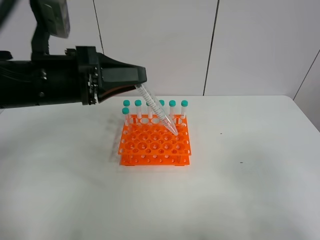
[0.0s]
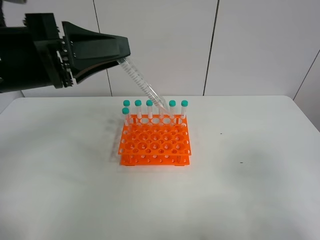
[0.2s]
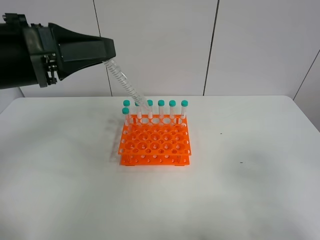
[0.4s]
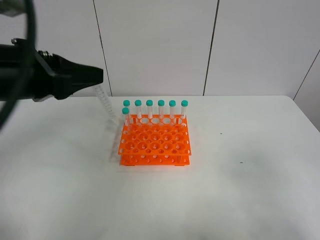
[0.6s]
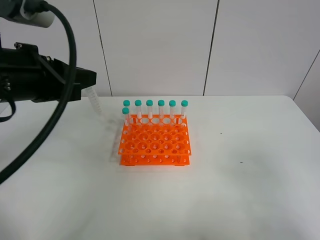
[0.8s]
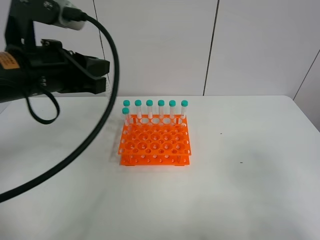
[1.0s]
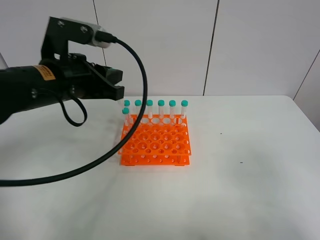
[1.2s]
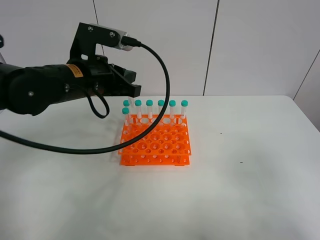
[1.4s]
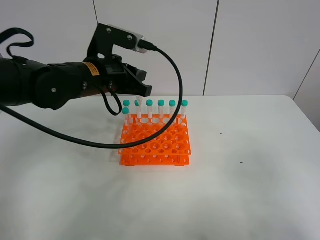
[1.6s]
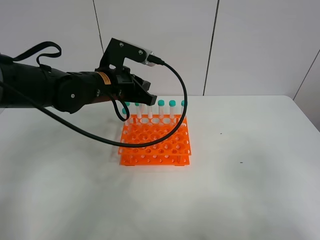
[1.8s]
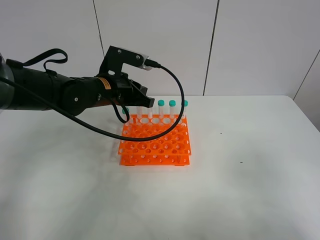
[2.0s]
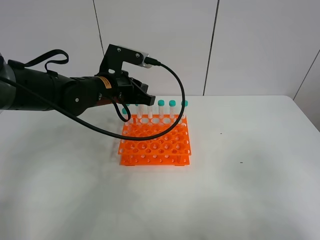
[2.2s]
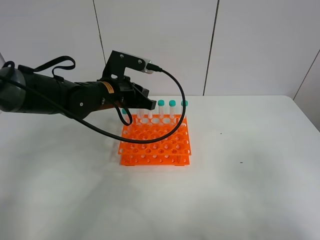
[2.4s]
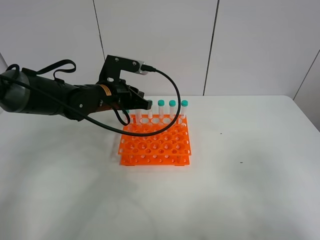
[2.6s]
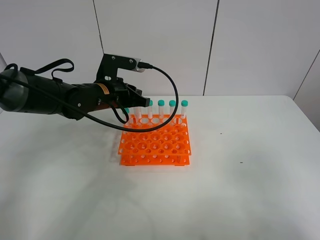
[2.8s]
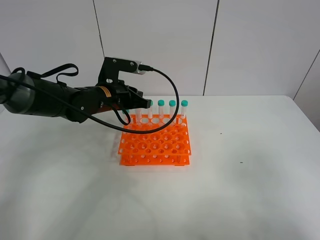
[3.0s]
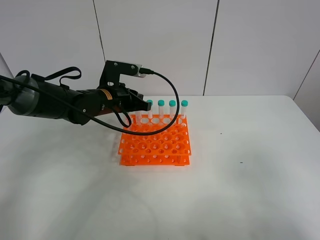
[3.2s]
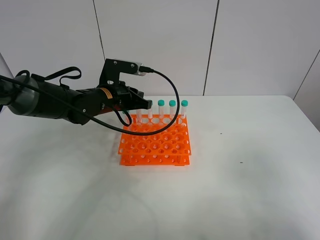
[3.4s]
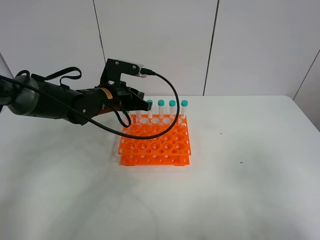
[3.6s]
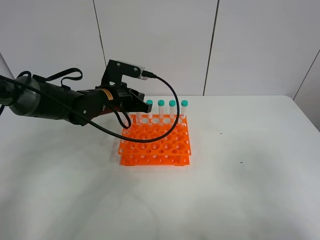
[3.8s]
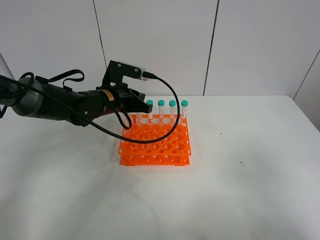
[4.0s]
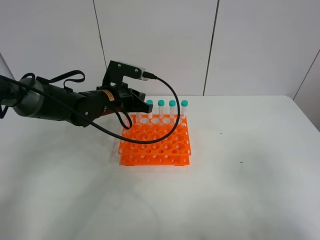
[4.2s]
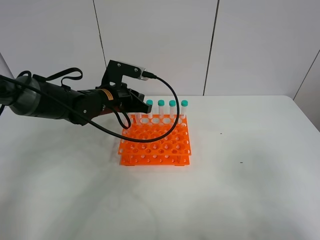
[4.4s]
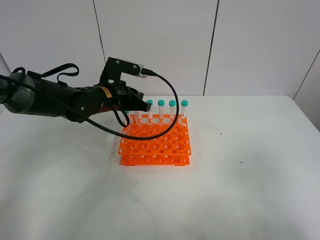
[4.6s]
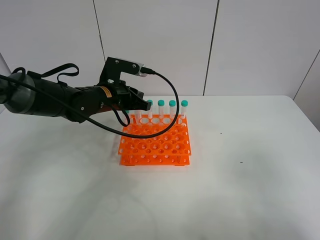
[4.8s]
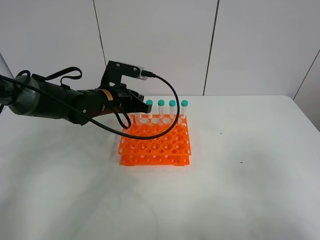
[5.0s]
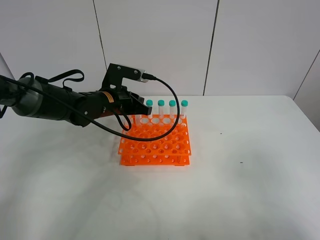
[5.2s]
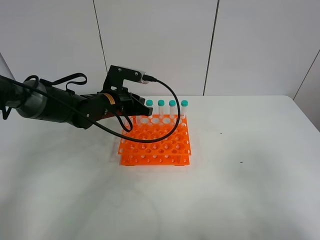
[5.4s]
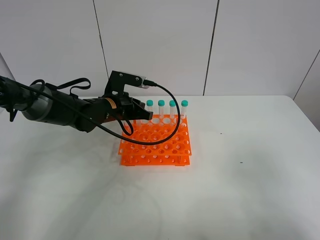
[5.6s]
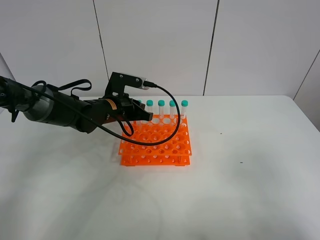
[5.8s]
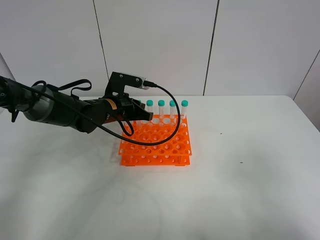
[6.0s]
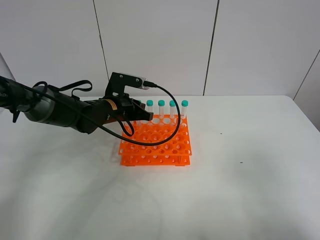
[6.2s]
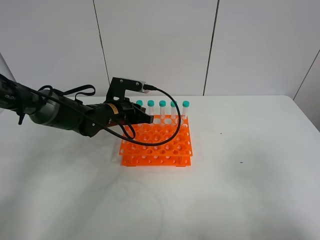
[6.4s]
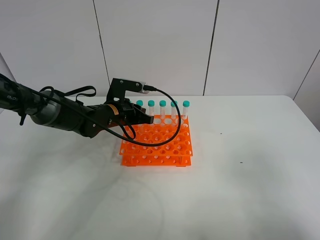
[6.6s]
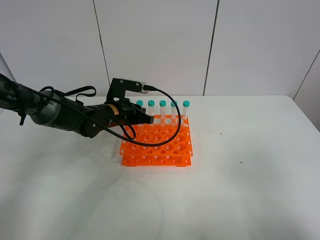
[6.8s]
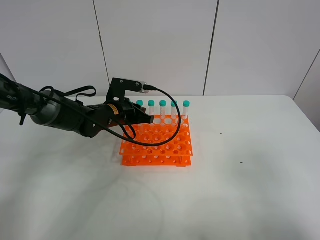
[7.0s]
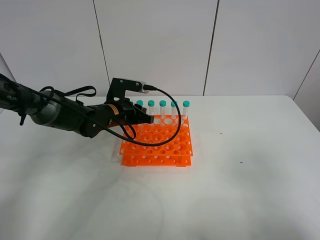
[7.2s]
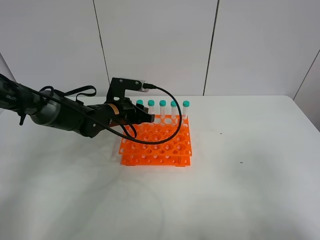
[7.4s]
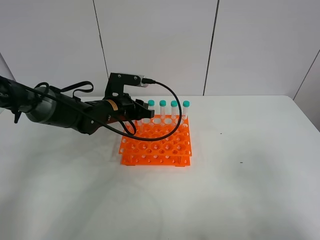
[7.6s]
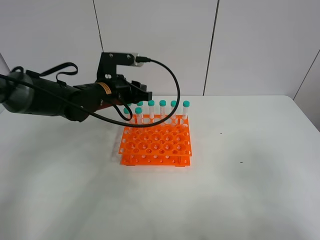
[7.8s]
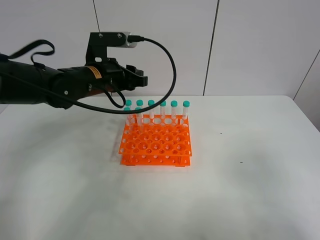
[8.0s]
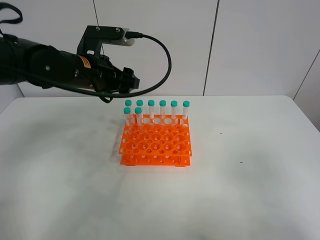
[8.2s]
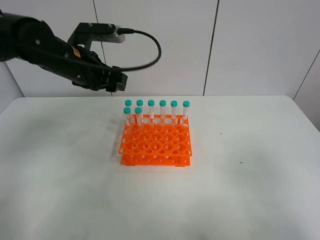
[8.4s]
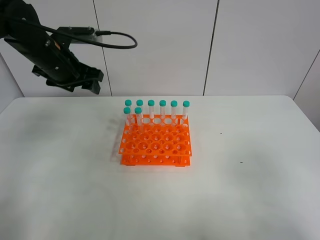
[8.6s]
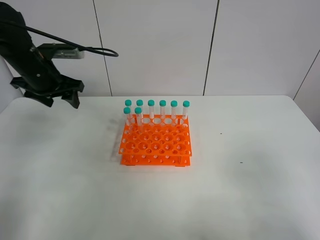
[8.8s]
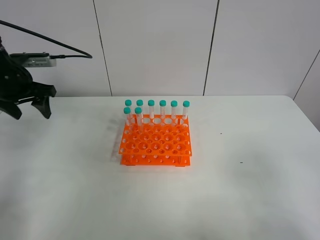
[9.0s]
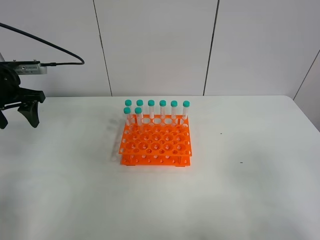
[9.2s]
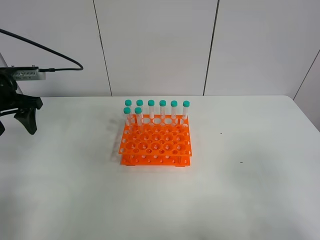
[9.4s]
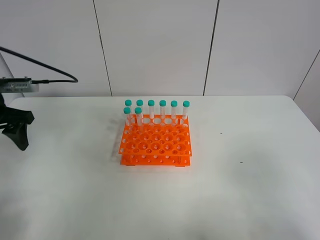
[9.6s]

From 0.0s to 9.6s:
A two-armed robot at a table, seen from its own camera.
Task of the whole recording: Put the test tube on the table back onto the test tube rack.
Step, from 0.0s to 7.4s: Place the test tube on the test tube rack with the left gripper.
From 0.0s to 1.6s: The left gripper goes some 10 cm forward and to the right.
From 1.6s to 3.2s: The left gripper goes some 10 cm downward and forward.
From 3.2s to 4.8s: The grippers move only a little.
From 4.8s to 6.4s: The left gripper shifts about 5 cm downward.
From 6.4s to 8.0s: The left gripper travels upward by roughly 10 cm, and opens its fingers.
From 8.0s to 9.6s: The left gripper heads to the left, covering some 20 cm, and opens.

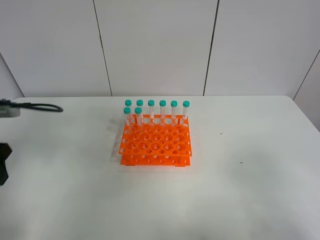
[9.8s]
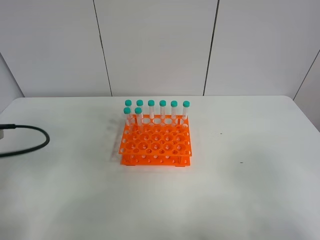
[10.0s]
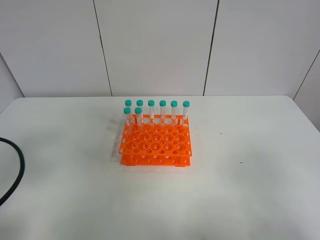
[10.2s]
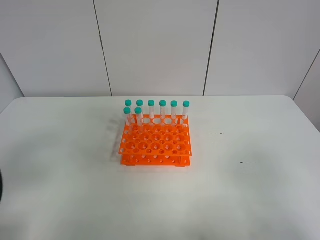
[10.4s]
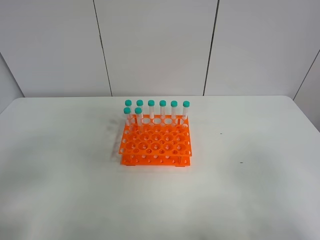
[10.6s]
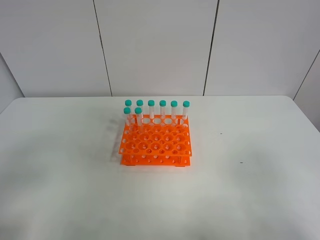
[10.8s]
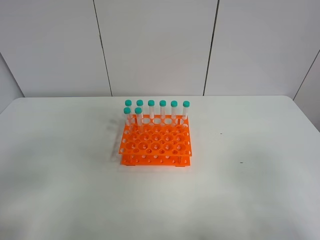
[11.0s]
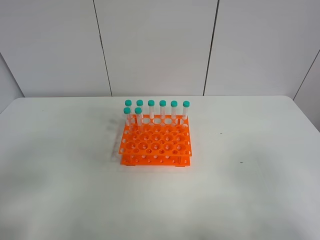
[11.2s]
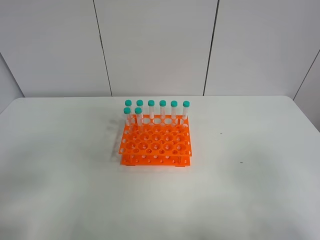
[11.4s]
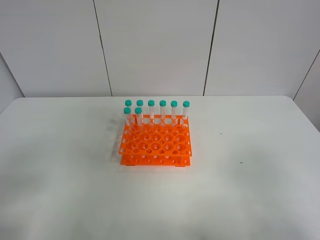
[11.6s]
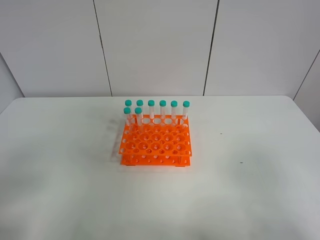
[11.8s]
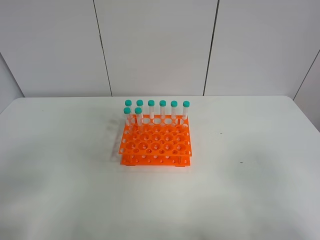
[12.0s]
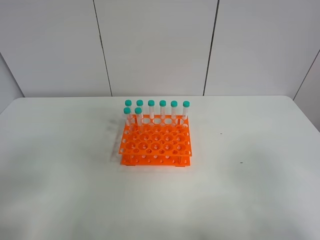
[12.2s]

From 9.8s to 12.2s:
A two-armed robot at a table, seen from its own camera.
Task of the whole recording: Put the test tube on the table back onto the test tube rack.
From 9.8s to 11.0s: The left gripper goes some 15 cm backward.

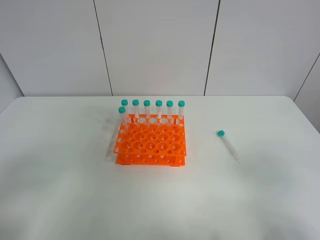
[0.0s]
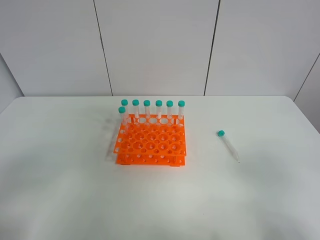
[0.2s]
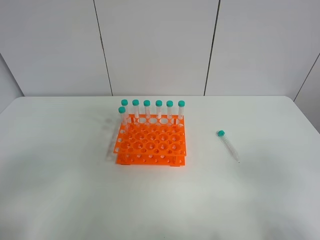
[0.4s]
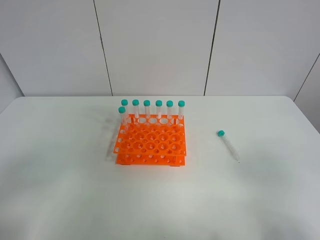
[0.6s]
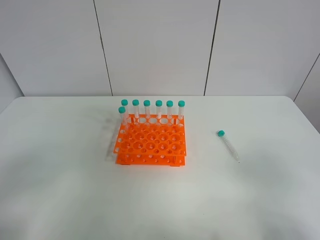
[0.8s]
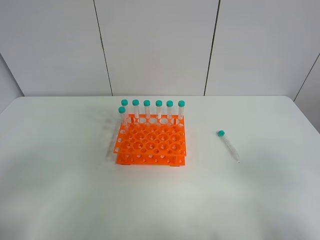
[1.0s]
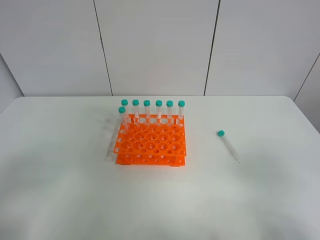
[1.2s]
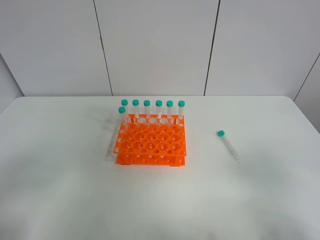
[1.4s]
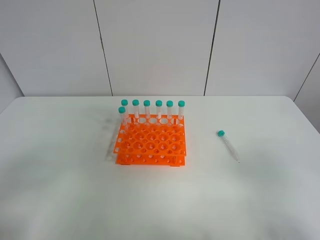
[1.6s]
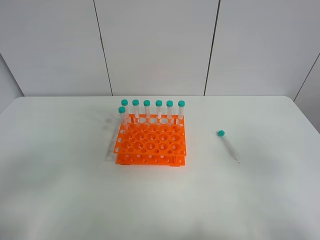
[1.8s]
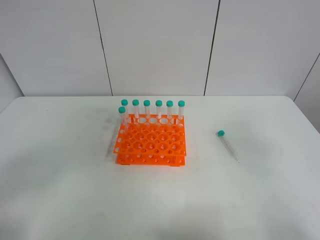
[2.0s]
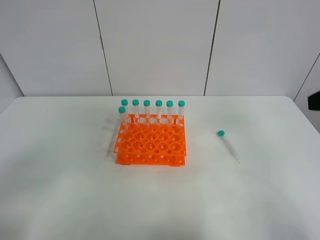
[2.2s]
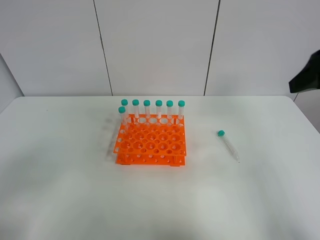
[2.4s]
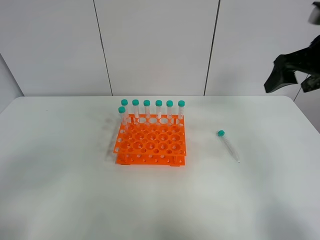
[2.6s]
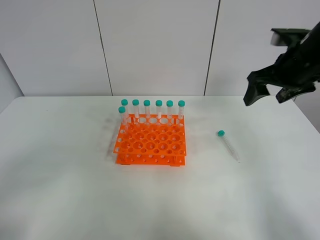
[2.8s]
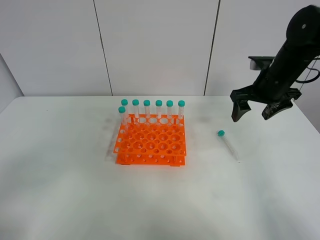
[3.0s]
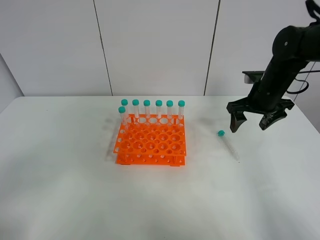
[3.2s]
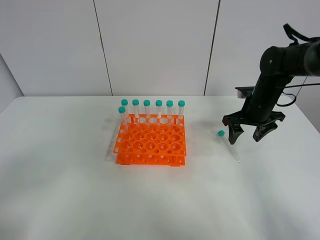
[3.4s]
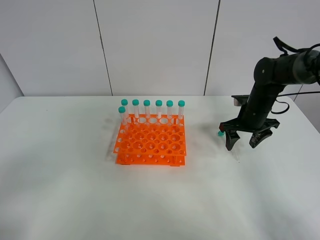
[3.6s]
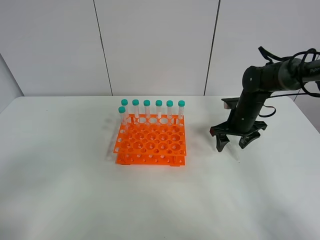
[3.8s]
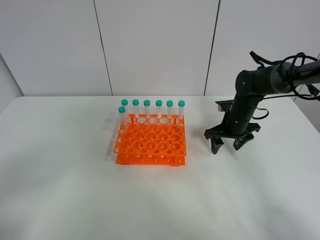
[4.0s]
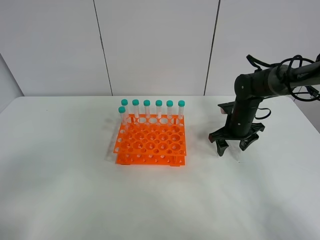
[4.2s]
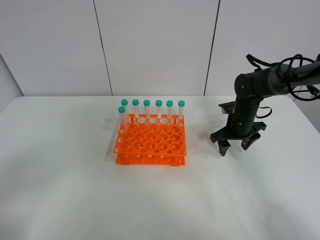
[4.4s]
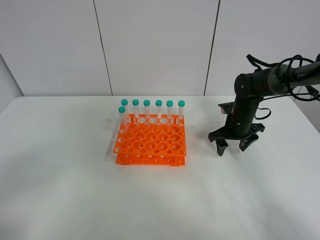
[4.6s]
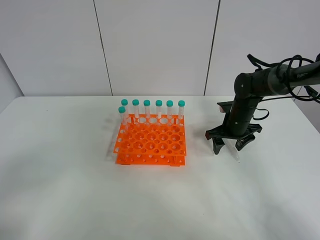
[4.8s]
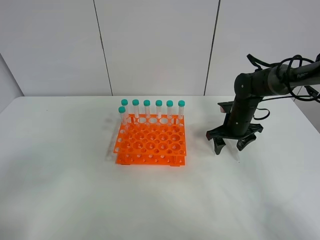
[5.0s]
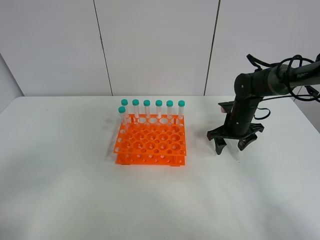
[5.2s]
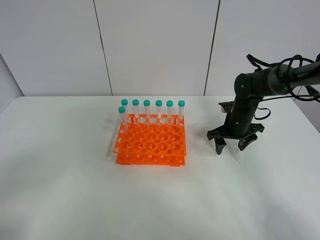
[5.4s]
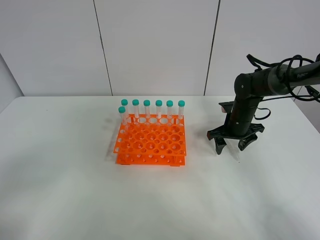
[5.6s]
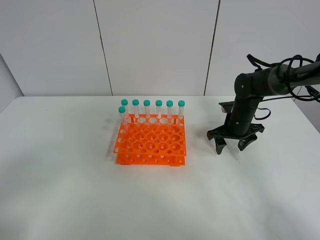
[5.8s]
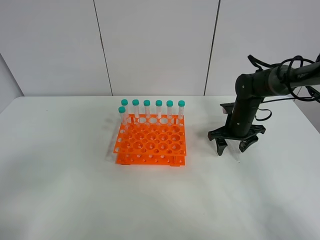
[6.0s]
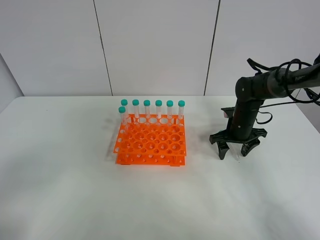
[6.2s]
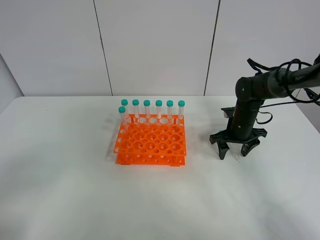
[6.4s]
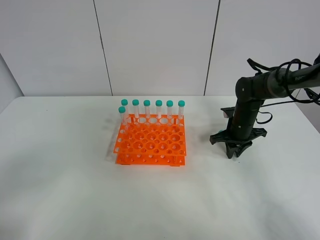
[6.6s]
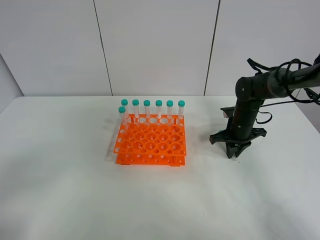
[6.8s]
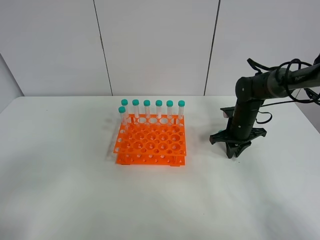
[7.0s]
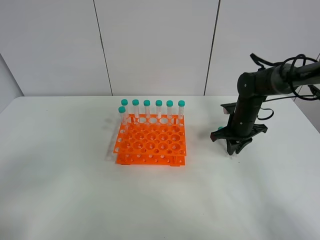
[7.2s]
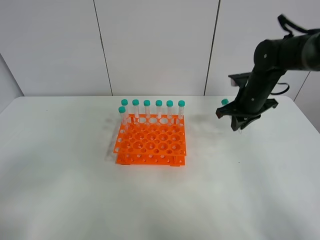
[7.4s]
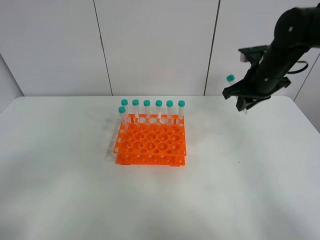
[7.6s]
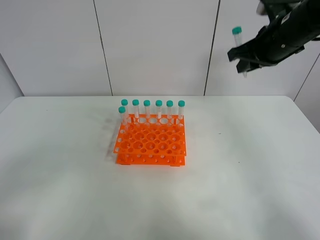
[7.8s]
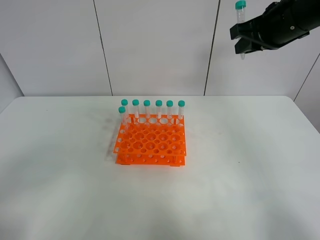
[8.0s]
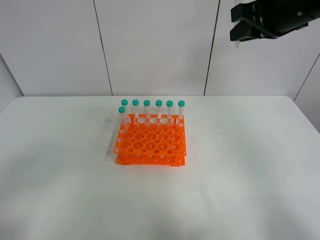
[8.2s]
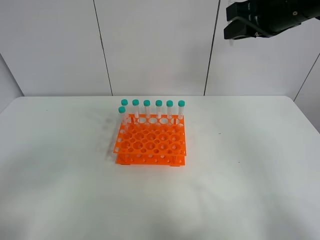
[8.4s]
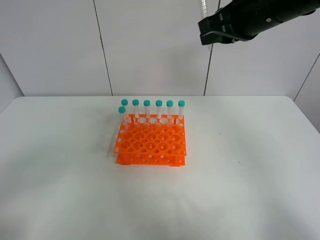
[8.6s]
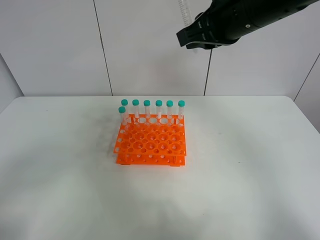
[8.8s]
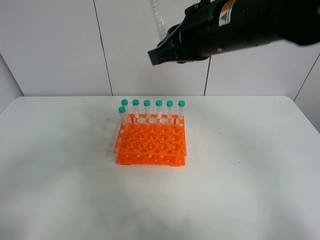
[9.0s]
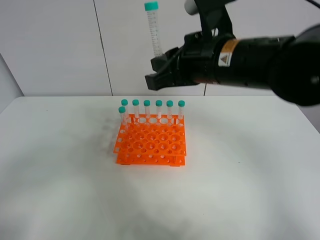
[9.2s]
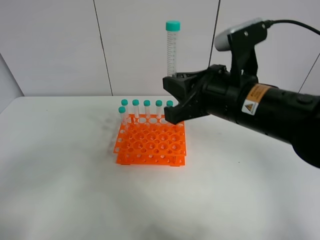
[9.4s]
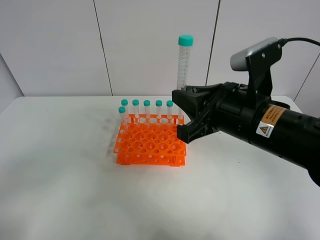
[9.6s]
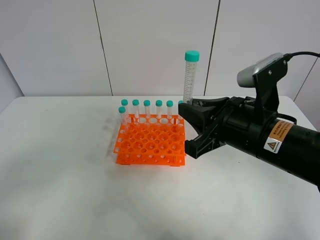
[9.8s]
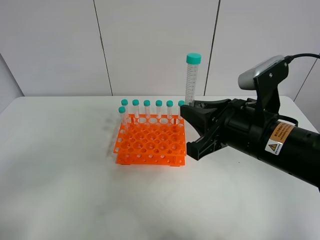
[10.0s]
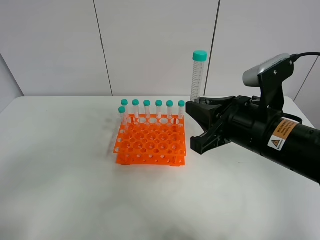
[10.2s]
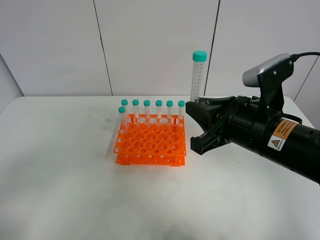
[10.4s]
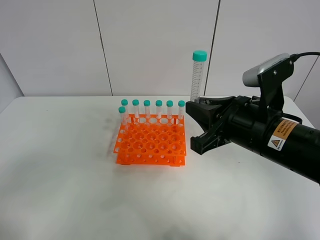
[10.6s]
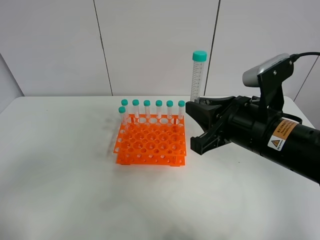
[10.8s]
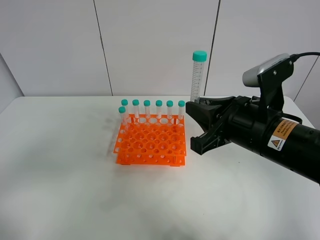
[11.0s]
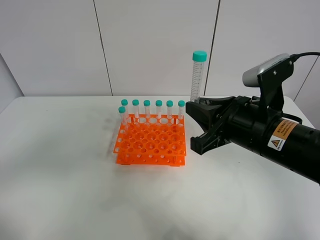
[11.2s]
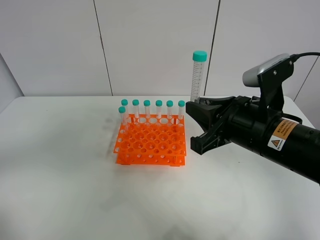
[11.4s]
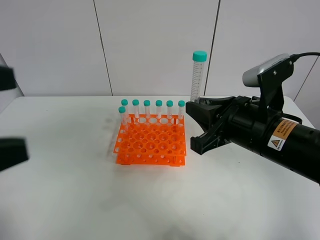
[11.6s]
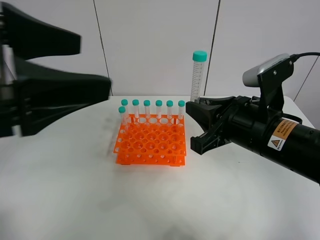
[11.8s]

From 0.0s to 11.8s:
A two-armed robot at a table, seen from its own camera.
Task of the whole recording: Put the test tube on the table back onto the test tube rack.
Step, from 0.0s to 7.6s: Pick up the test tube with the right gripper.
From 0.0s to 1.4s: Both grippers stay about where they are.
From 1.4s to 3.0s: The right gripper shifts some 35 cm forward.
From 3.0s to 4.4s: The right gripper shifts approximately 15 cm downward.
From 4.4s to 6.0s: The grippers make only small movements.
From 6.0s to 7.4s: The right gripper travels upward by about 10 cm, and closes its fingers.
From 7.4s to 8.8s: The right gripper travels upward, to the left and backward by approximately 25 cm.
From 8.8s to 10.4s: The right gripper goes approximately 15 cm downward and backward.
From 10.4s to 11.8s: The left gripper travels forward, to the right and upward by roughly 25 cm.
